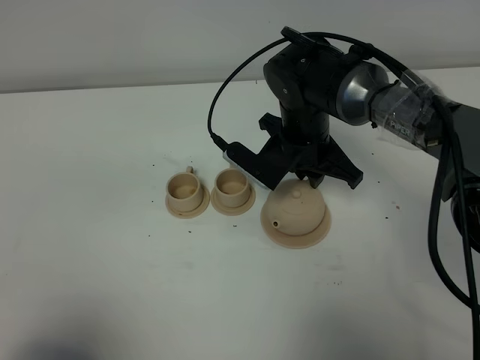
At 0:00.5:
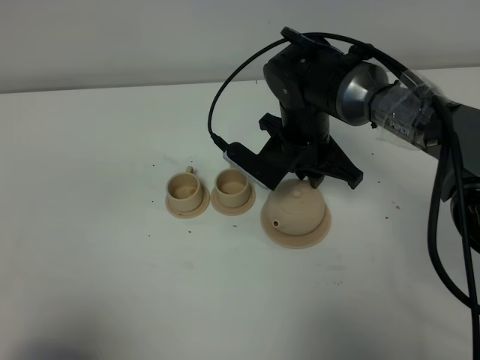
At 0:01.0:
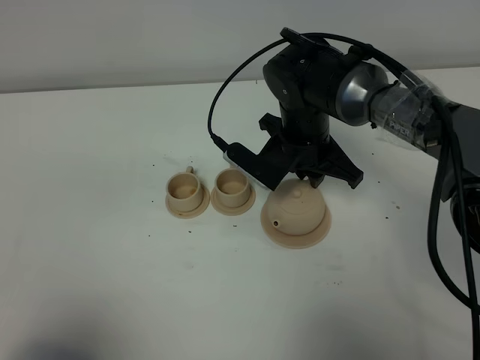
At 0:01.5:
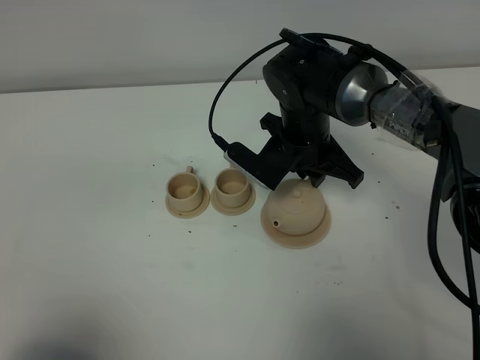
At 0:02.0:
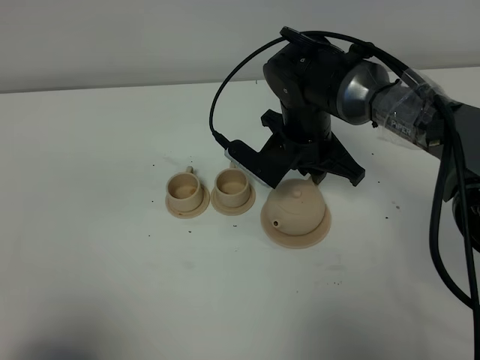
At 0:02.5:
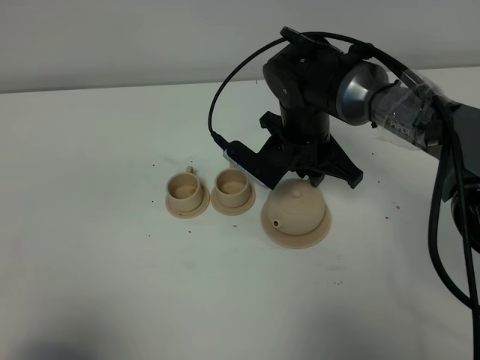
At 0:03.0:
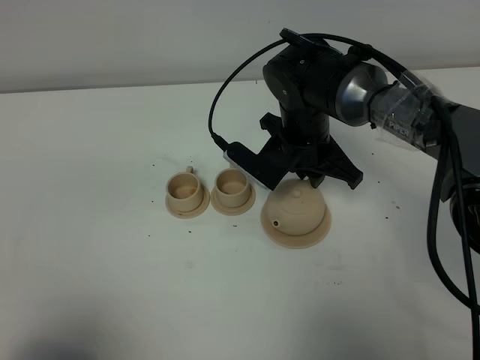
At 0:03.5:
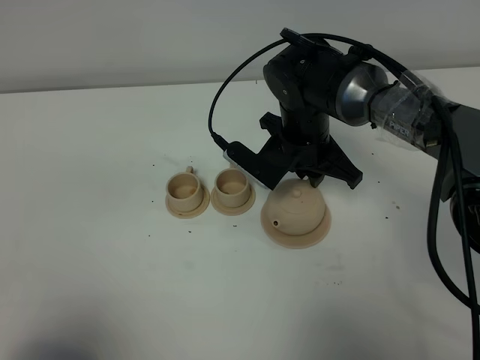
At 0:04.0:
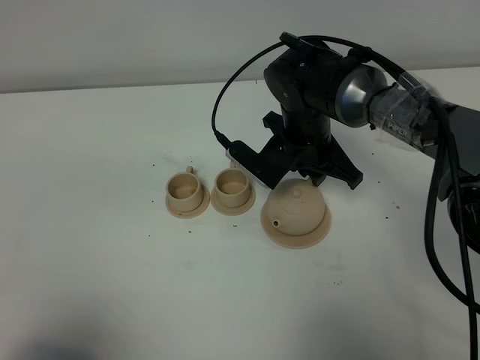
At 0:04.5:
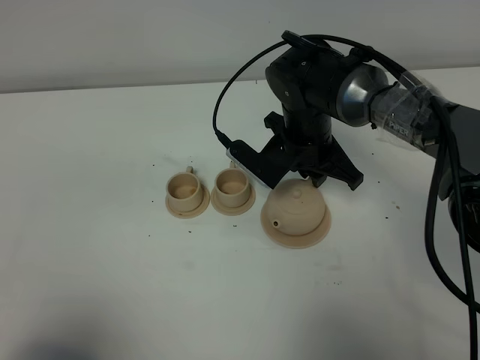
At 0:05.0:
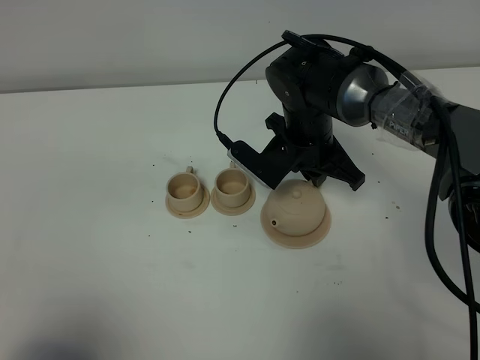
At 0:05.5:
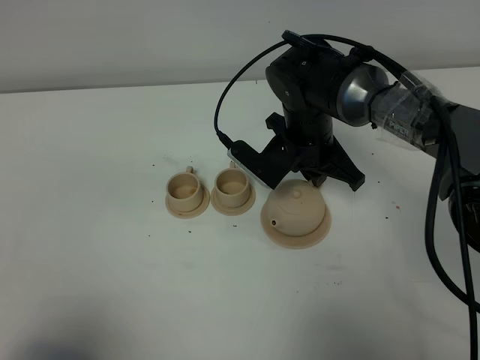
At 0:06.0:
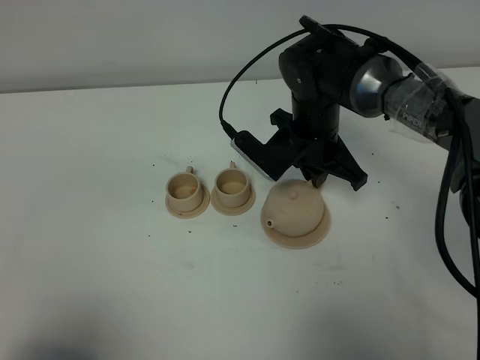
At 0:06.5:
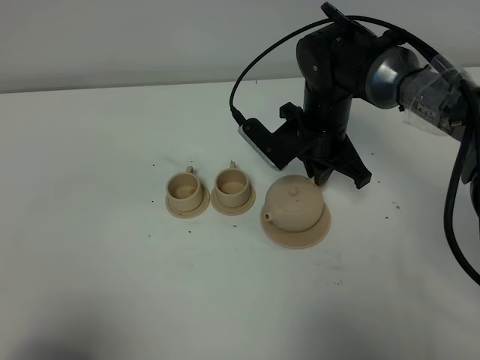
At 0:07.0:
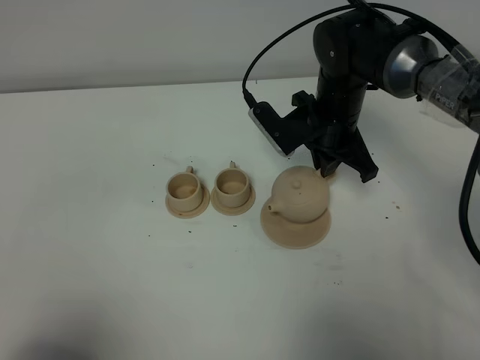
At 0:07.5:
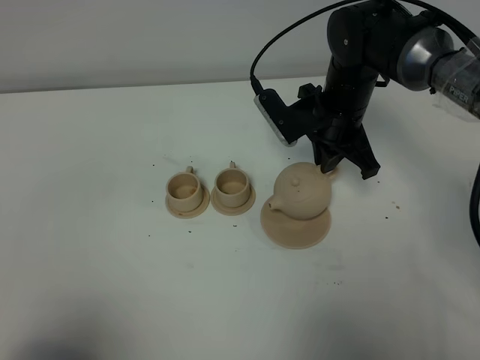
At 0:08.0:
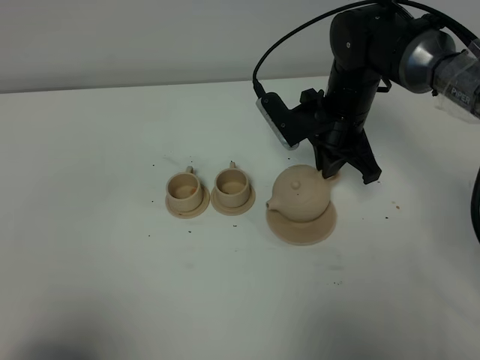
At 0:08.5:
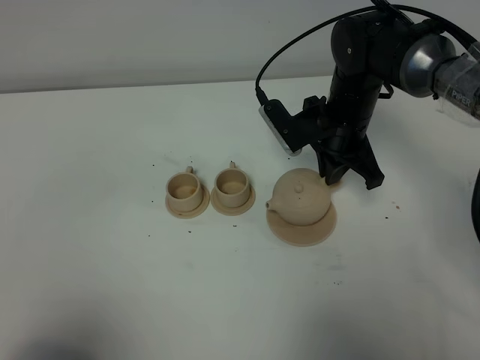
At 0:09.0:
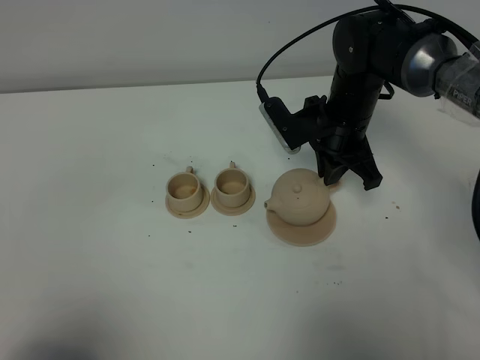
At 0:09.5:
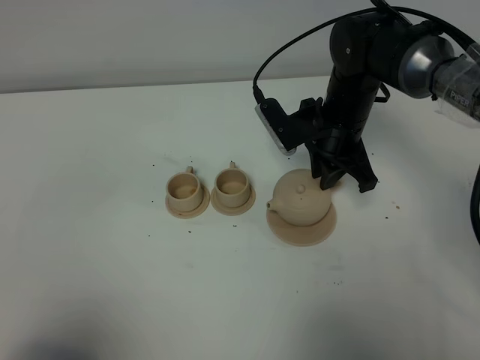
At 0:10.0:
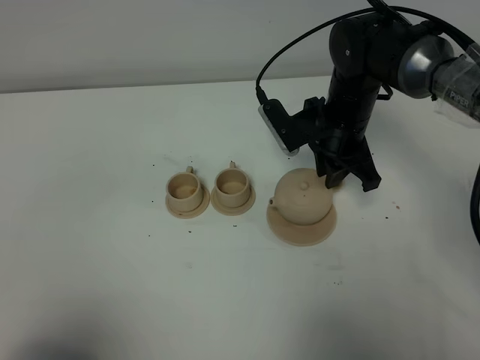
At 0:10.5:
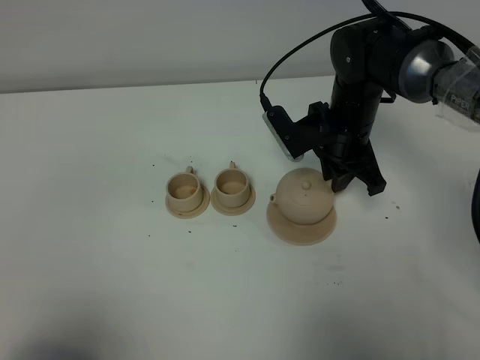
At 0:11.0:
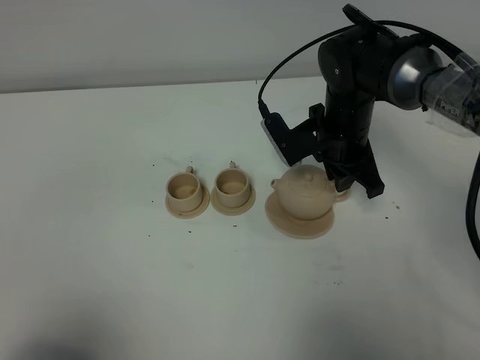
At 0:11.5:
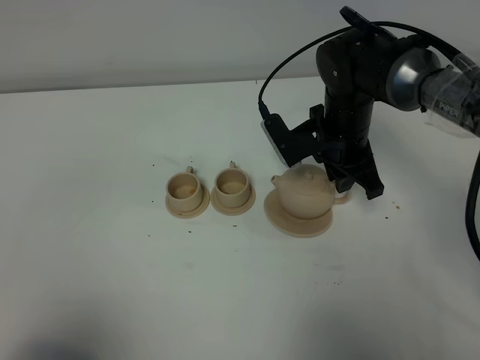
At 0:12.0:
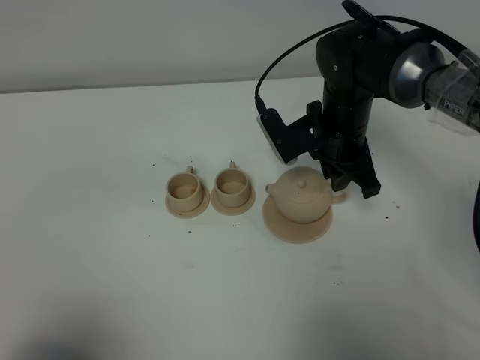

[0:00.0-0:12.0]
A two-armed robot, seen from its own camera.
Task of the whole recording: grasp the brown teapot and pour the tea into the two brown teacups one by one, put the brown teapot back in its original place.
0:00.0 to 0:04.0: Neither gripper changes place.
0:04.0 to 0:06.0: There are only small adjustments of the grippers.
0:06.0 to 0:08.0: The grippers make only small movements.
0:08.0 to 0:10.0: Both grippers stay put.
0:10.0 to 0:12.0: There are only small adjustments of the grippers.

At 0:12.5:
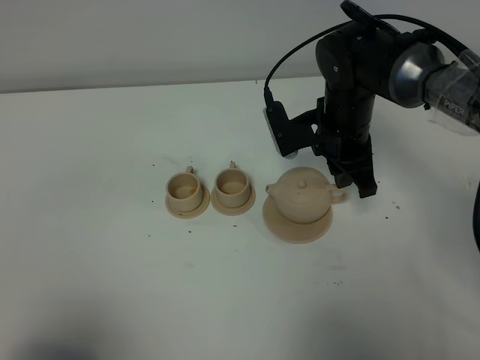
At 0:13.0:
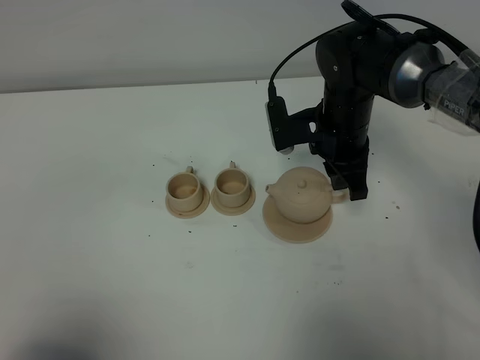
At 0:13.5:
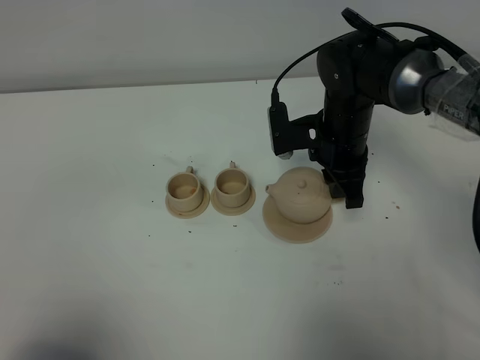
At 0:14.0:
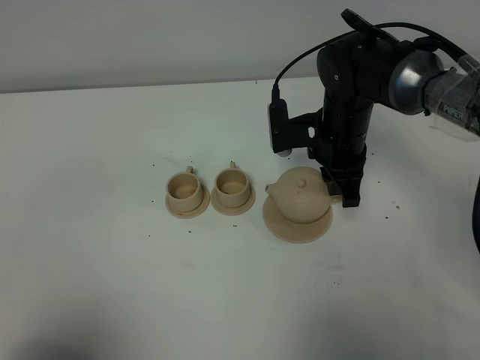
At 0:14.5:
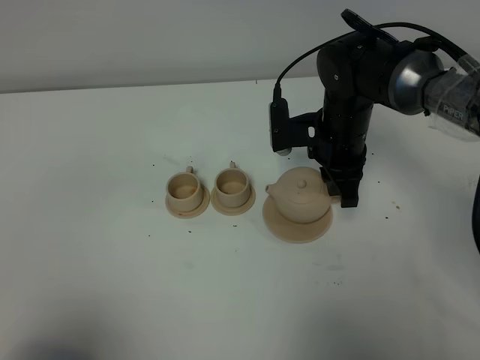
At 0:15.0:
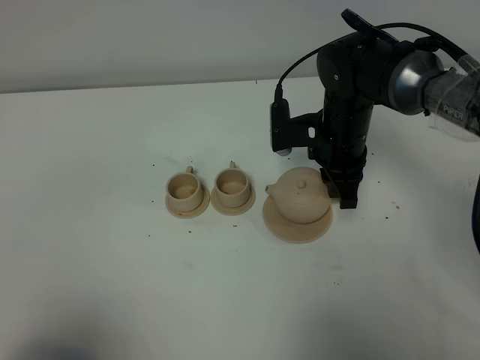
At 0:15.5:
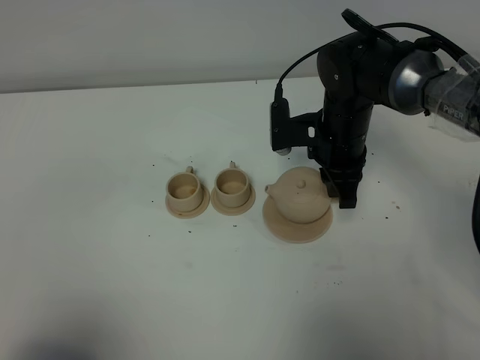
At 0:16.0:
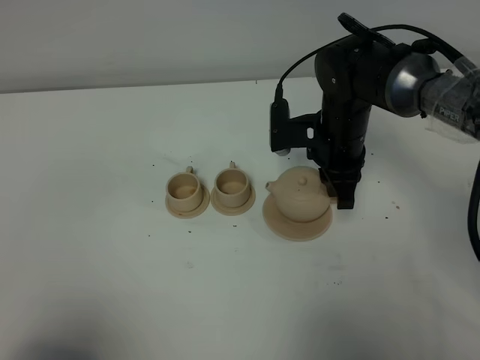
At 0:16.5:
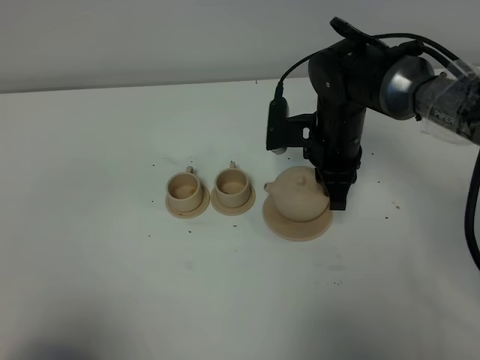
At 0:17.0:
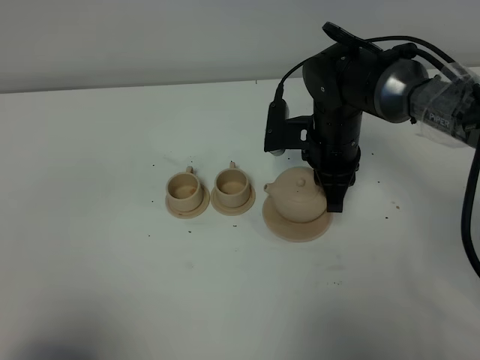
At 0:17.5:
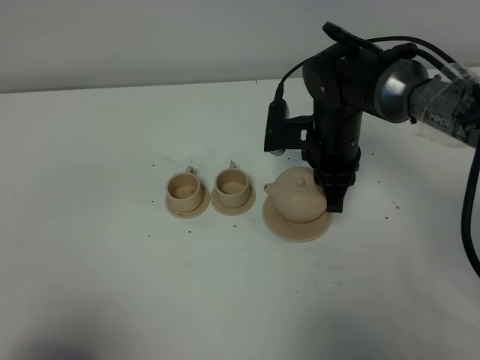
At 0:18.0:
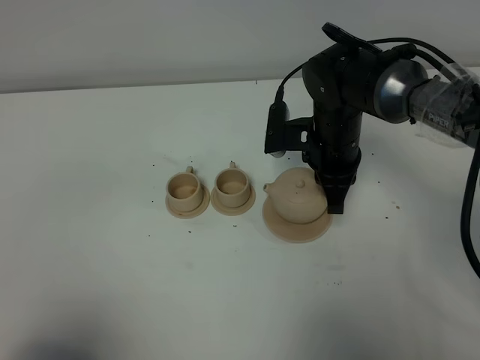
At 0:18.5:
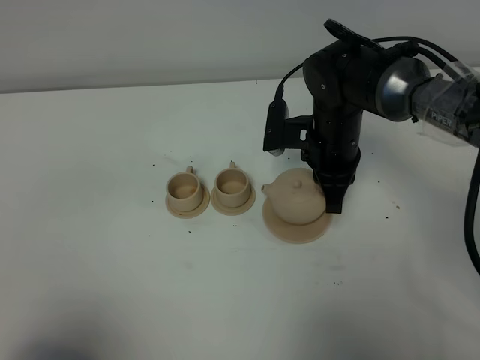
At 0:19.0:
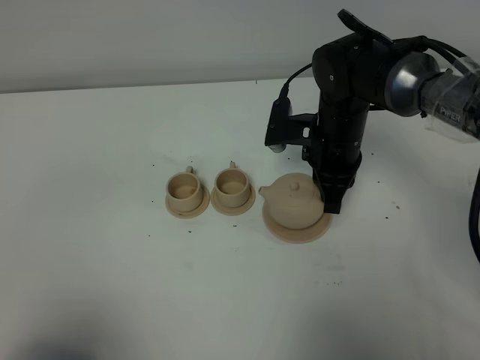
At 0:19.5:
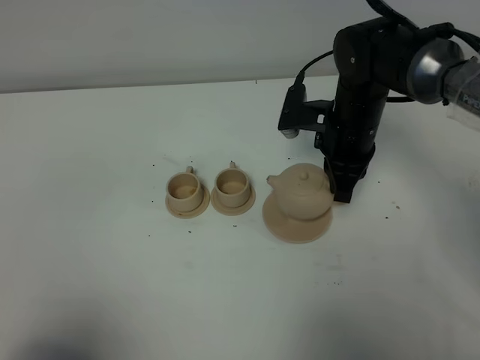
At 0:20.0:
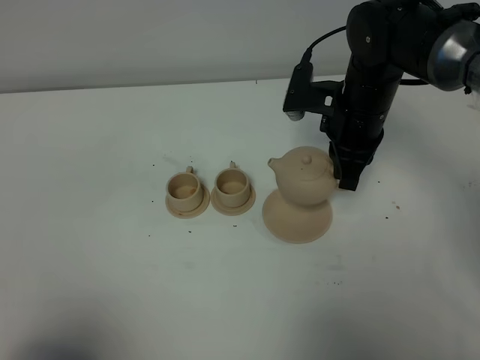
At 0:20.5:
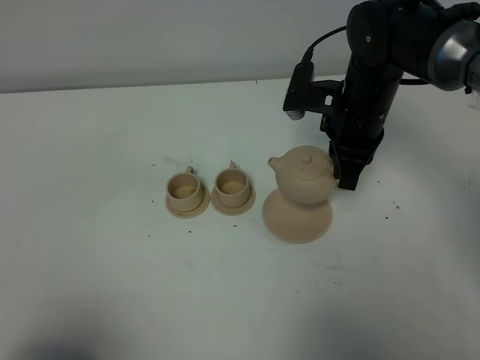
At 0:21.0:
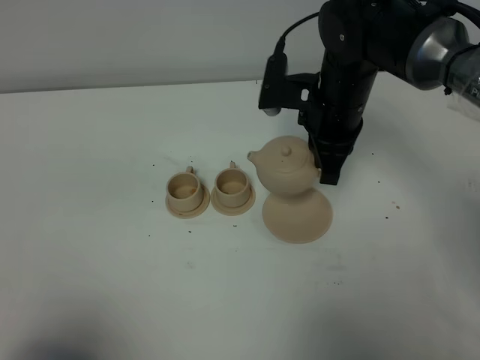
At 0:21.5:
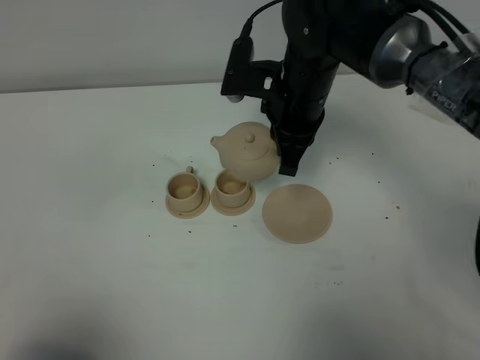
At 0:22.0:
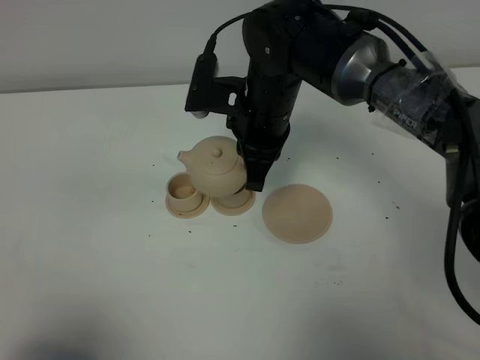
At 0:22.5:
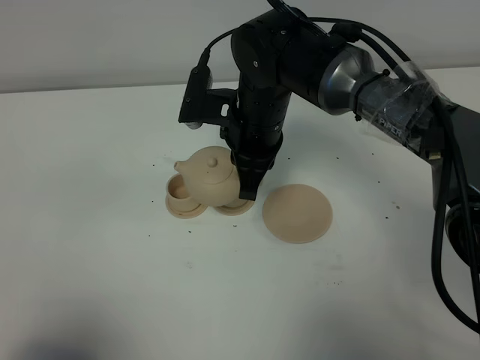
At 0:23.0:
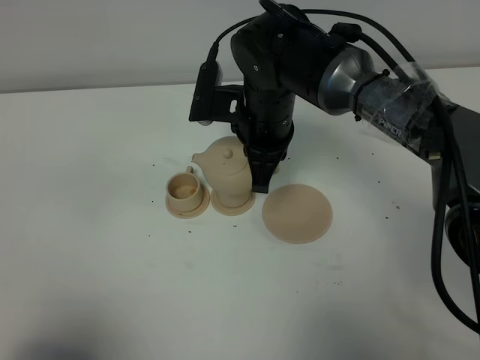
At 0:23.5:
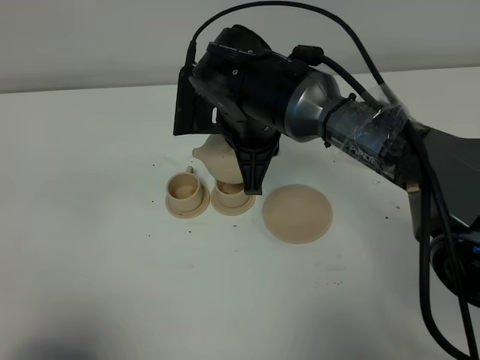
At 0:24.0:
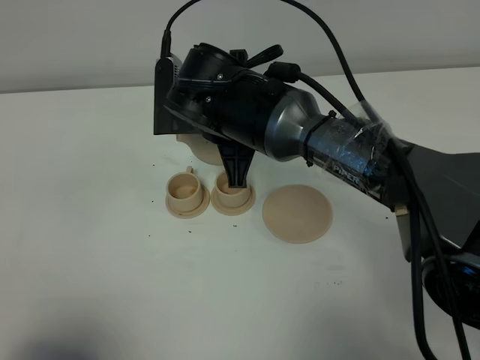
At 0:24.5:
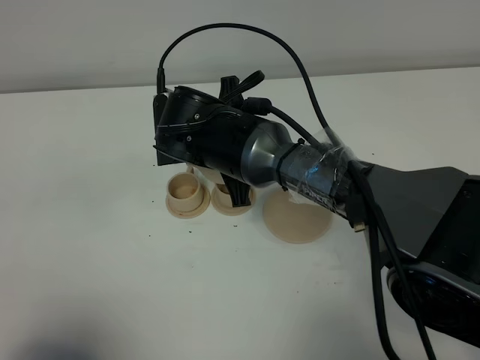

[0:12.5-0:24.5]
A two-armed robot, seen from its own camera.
Task of the whole recording: grasp the brown teapot and pour the tea into the two brown teacups one by one, put the brown teapot back in its original place.
Step, 0:12.5 to 0:19.0: Pick up the teapot with the right gripper.
0:12.5 to 0:16.5: There are only small adjustments of the grippers.
0:16.5 to 0:18.5: The two grippers keep their place.
0:18.5 to 0:20.5: The right gripper shifts by approximately 5 cm.
0:20.5 to 0:22.5: The right gripper moves to the left, some 10 cm.
0:22.5 to 0:24.5: The right gripper shifts by some 5 cm.

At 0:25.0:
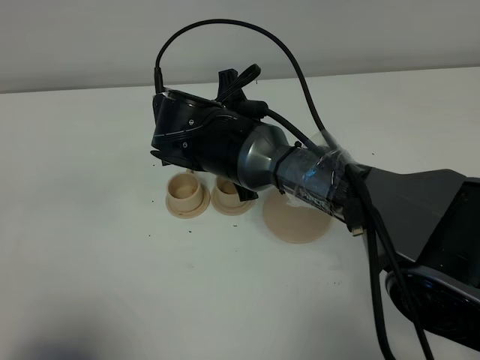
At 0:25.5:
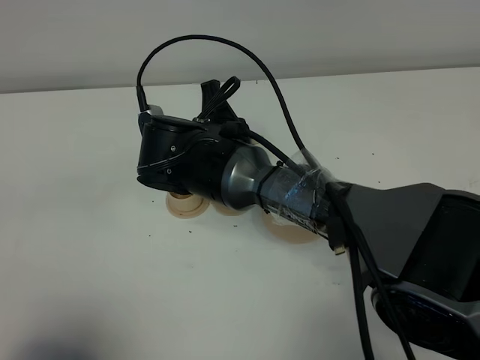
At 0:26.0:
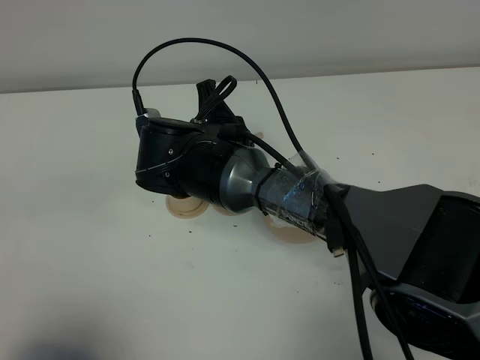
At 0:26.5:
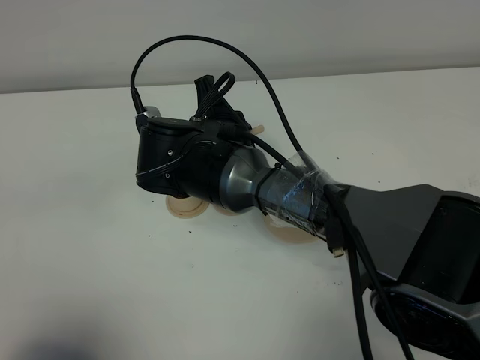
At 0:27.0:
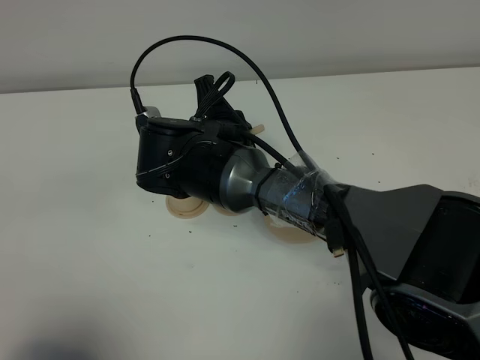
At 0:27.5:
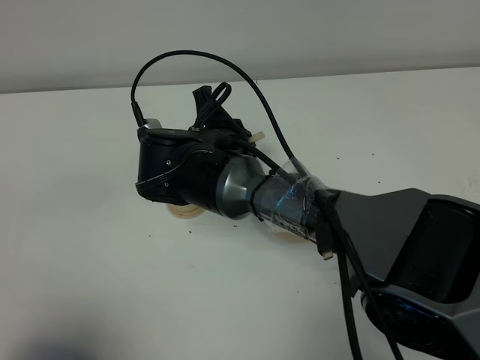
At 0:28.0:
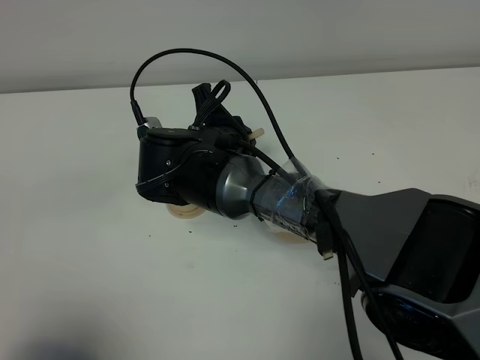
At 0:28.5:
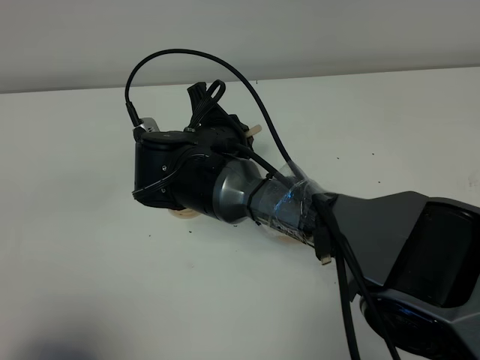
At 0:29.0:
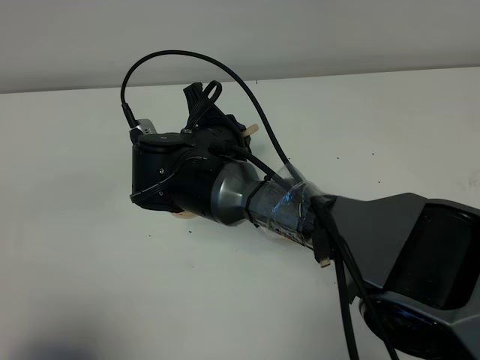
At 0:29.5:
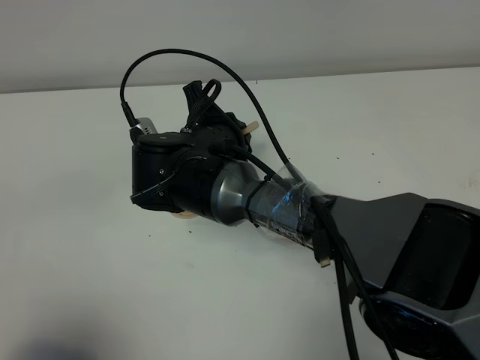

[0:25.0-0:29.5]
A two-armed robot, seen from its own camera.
Task of the whole recording: grasp the brown teapot and pour the tea into the two brown teacups one by one, put the brown teapot back in its original place.
0:25.0 to 0:29.5: The grippers make only small movements.
